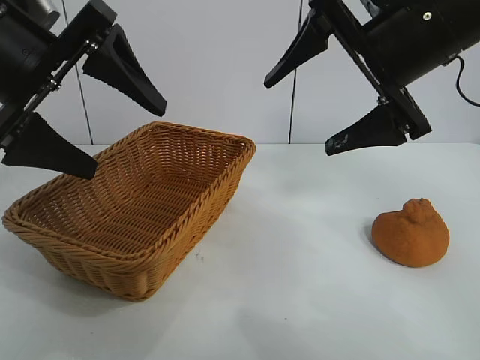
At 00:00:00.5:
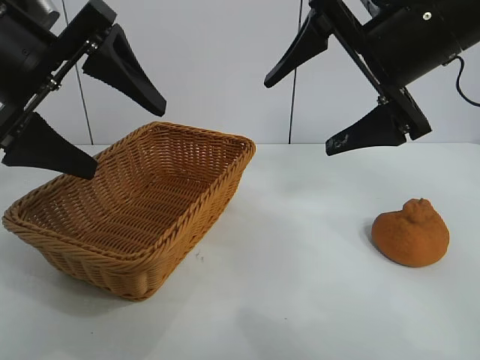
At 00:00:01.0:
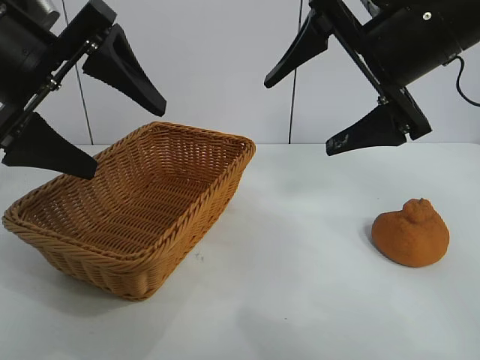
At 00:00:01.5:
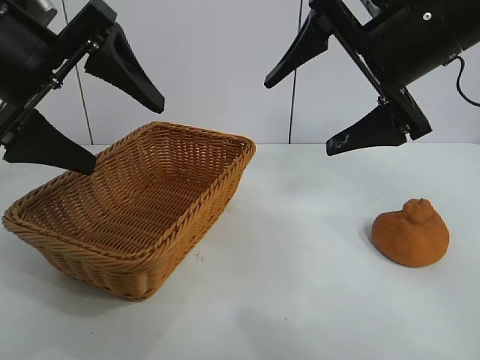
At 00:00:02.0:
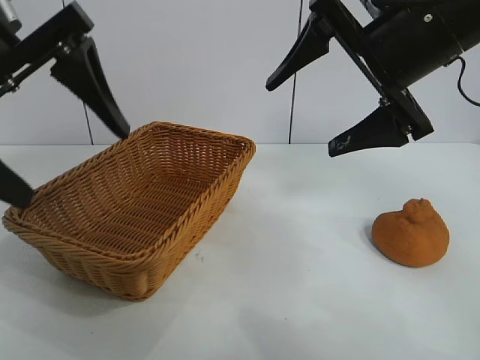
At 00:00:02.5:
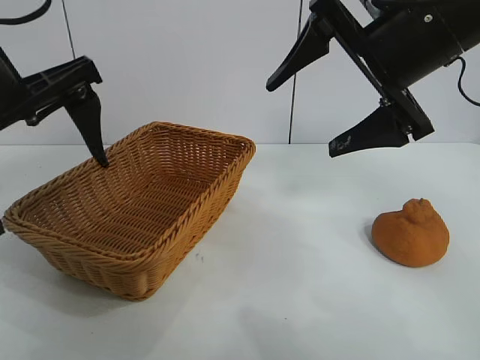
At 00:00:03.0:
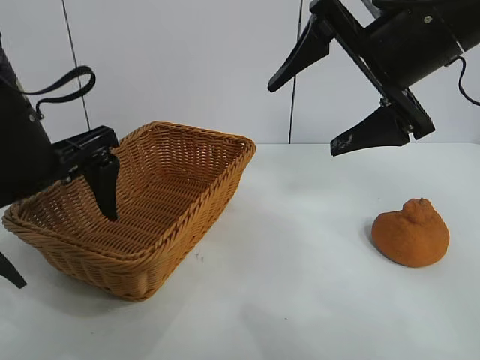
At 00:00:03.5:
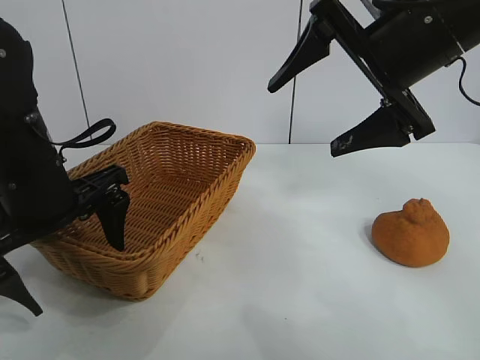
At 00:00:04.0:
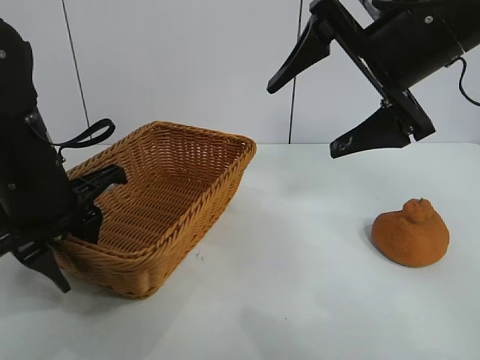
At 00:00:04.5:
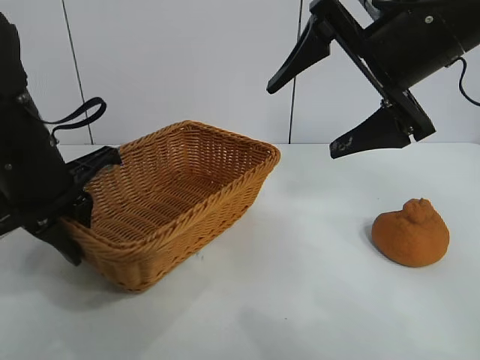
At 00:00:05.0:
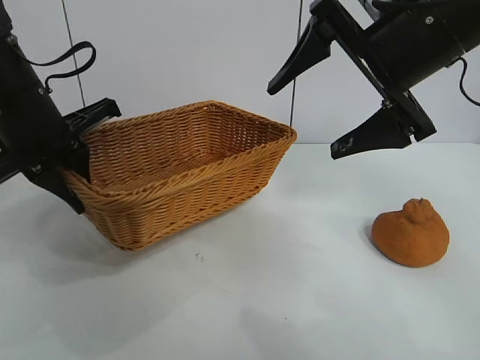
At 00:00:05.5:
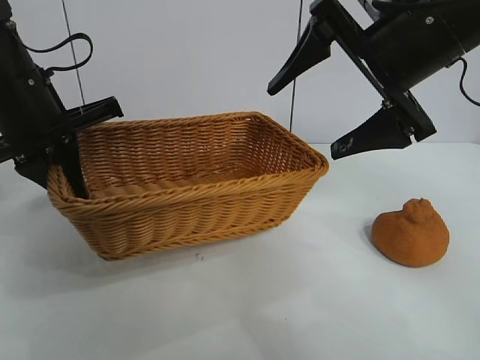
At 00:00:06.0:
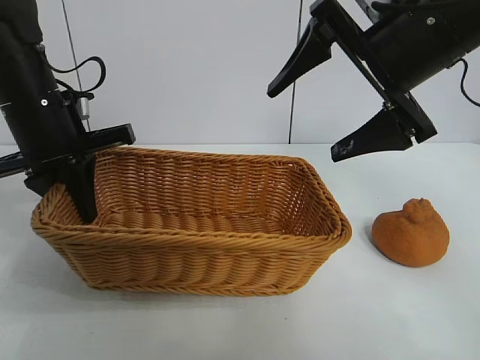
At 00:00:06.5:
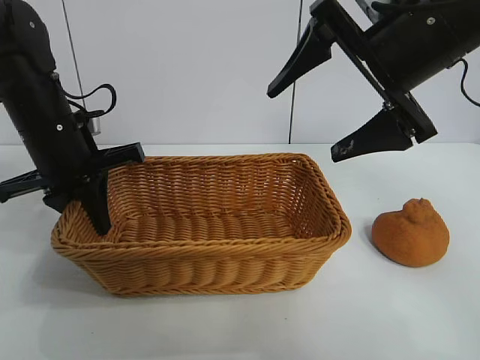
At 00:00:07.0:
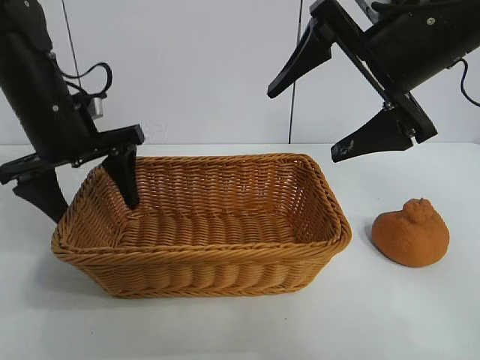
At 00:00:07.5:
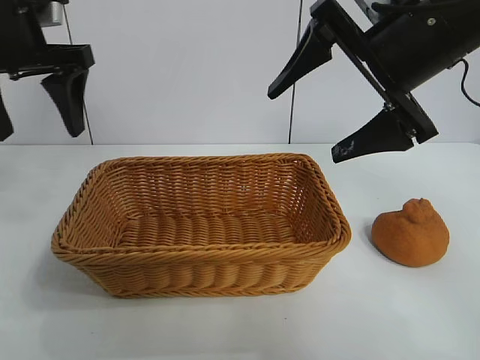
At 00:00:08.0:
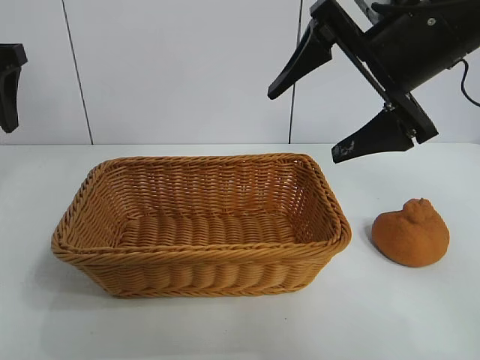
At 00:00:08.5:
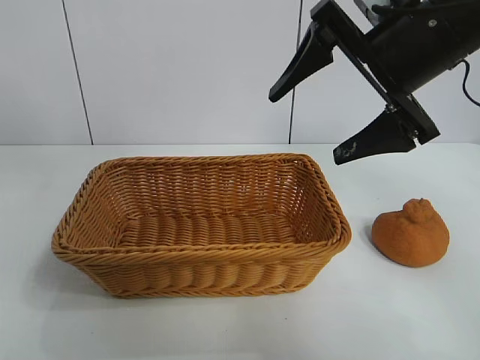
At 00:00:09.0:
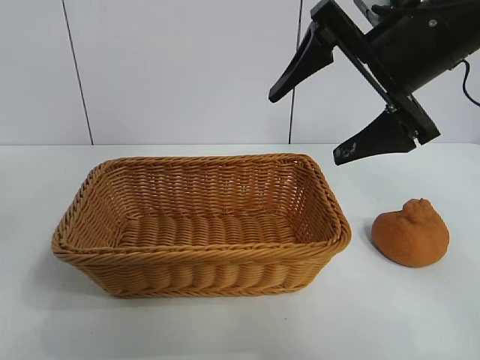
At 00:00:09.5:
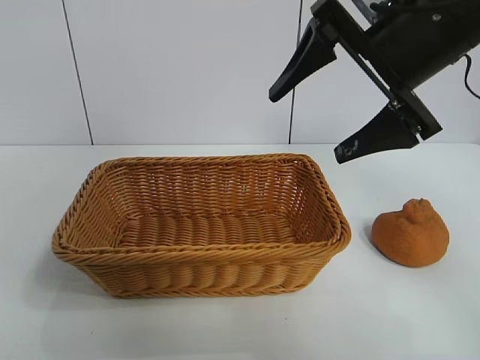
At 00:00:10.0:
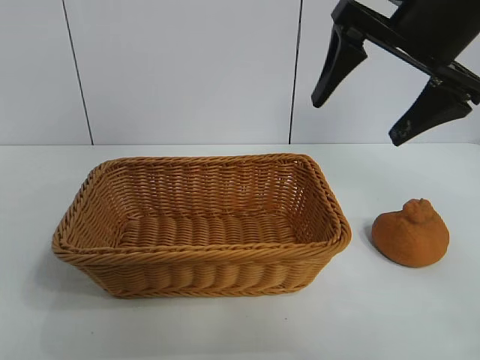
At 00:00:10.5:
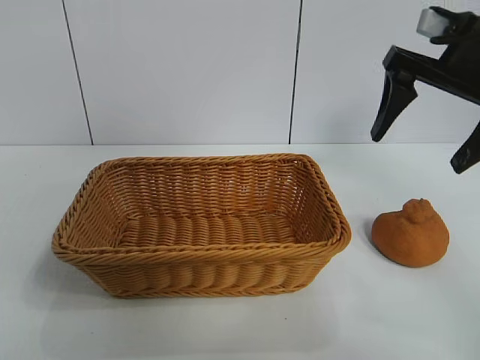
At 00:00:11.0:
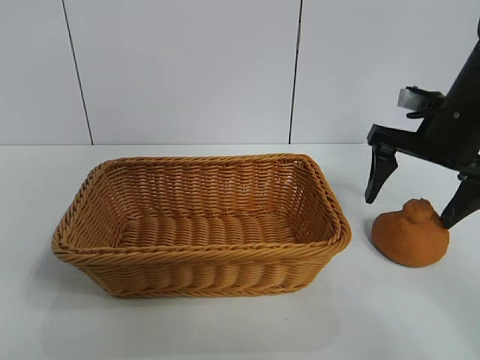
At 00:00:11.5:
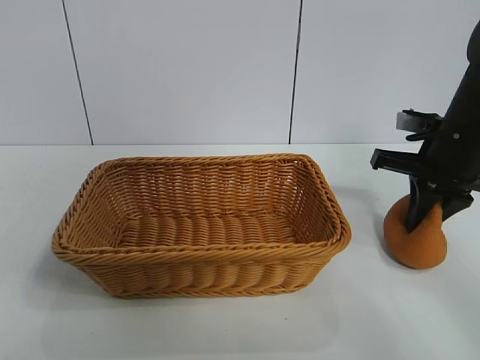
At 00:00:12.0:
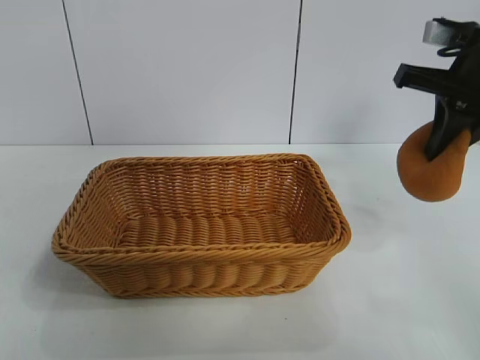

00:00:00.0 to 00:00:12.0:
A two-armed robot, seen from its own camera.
Task of the whole recording: pick up the orange and put it into the basket.
Step, 00:00:01.5 to 00:00:04.0: Grasp the basket with left gripper.
Step, 00:00:04.5 to 00:00:06.5: Place the basket in the center of view with left gripper.
Step, 00:00:07.0 to 00:00:11.5: Grasp the orange with right gripper.

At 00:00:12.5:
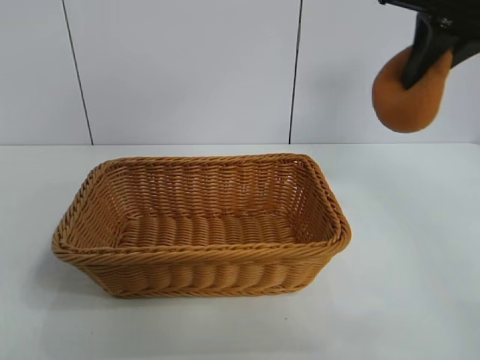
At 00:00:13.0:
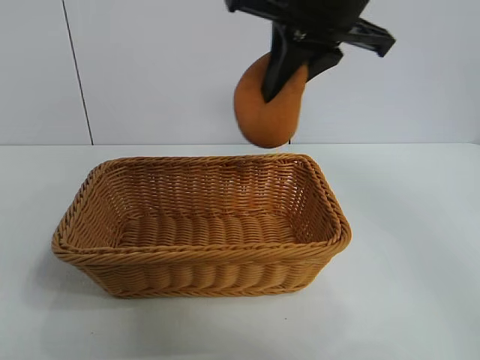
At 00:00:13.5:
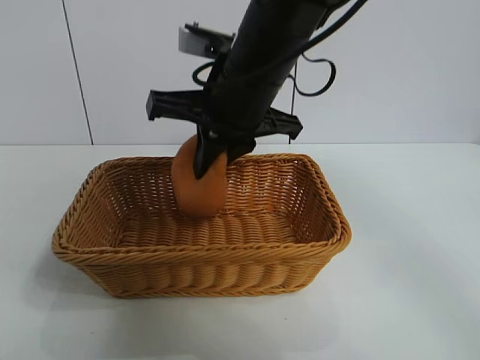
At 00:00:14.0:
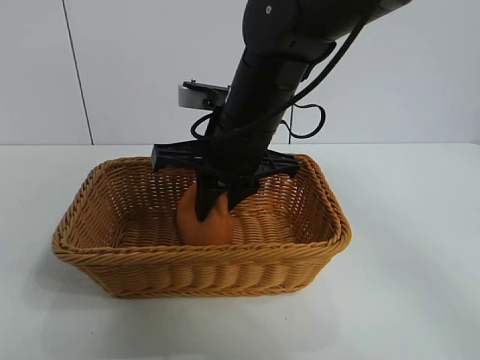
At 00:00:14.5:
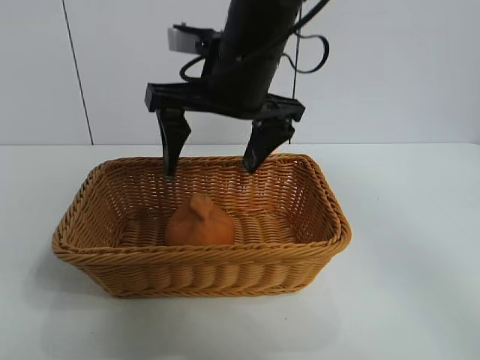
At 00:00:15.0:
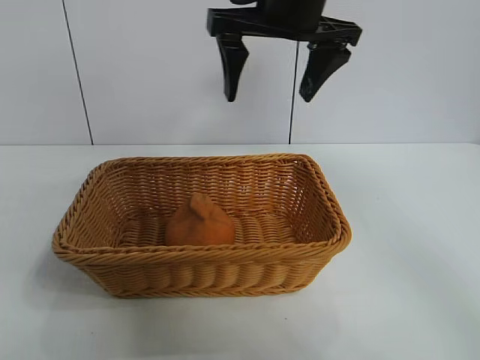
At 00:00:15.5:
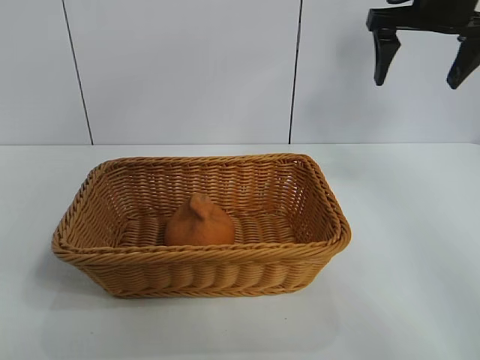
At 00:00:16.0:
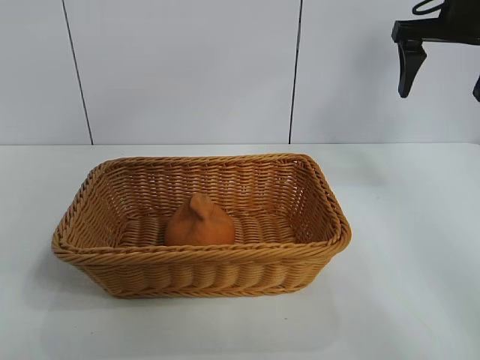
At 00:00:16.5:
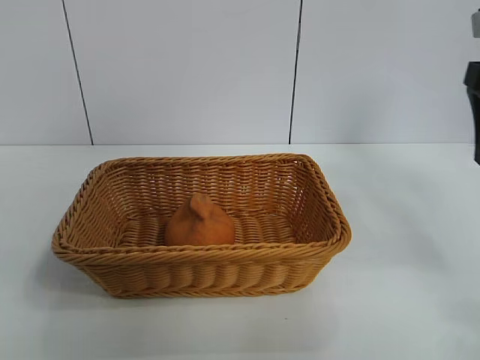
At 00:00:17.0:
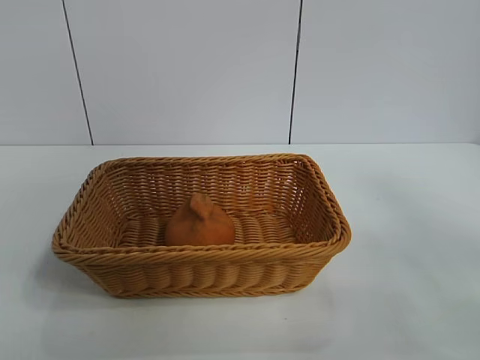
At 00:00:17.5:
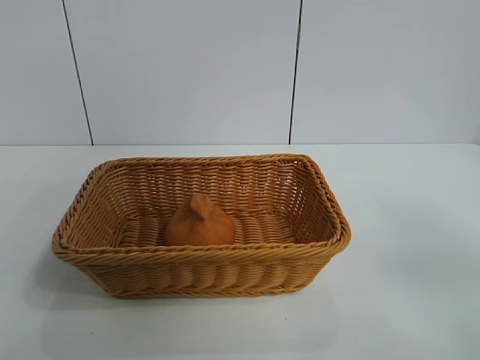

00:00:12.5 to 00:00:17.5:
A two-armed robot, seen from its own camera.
Task of the whole recording: pick up the orange and put it into the basket.
Step, 00:00:12.5 to 00:00:14.0: Place the orange in the basket with right gripper.
